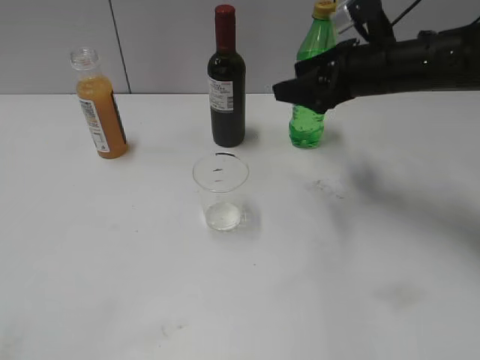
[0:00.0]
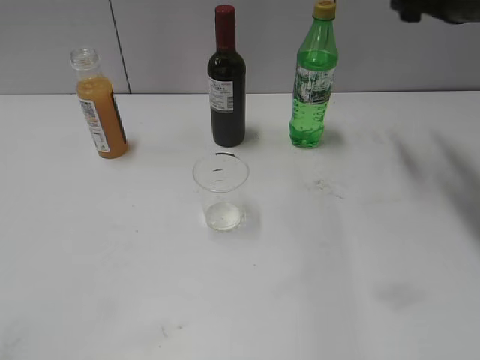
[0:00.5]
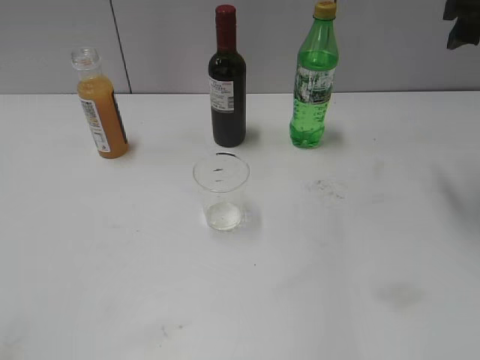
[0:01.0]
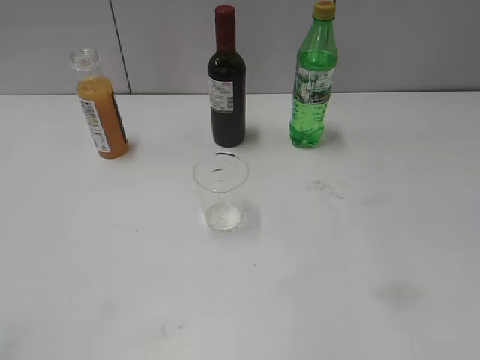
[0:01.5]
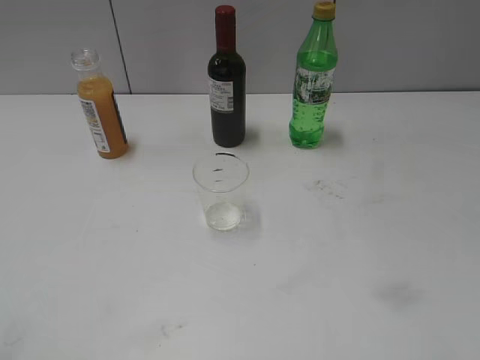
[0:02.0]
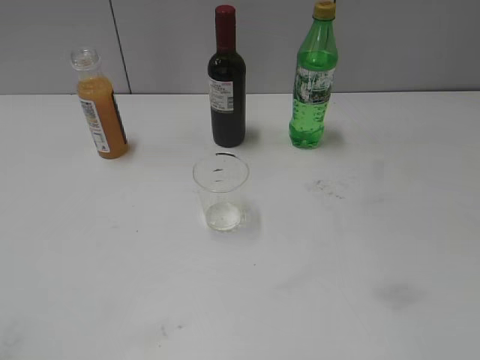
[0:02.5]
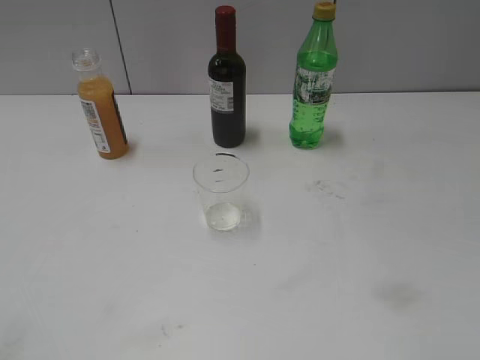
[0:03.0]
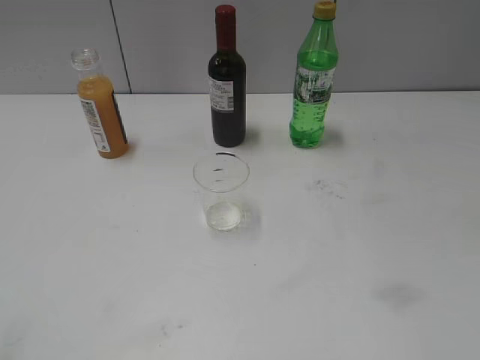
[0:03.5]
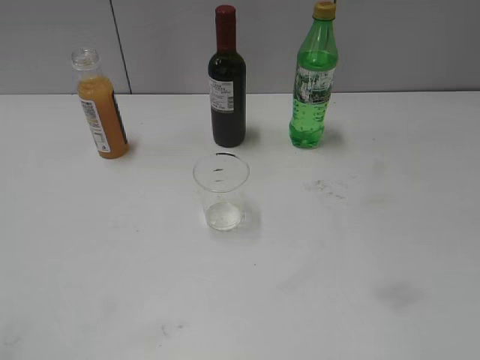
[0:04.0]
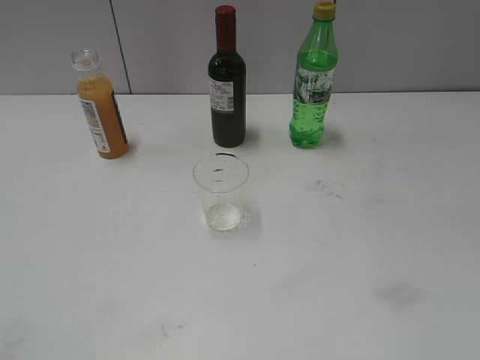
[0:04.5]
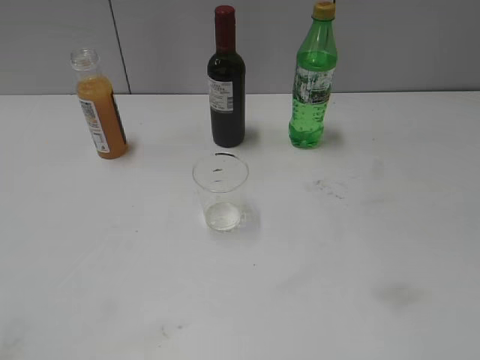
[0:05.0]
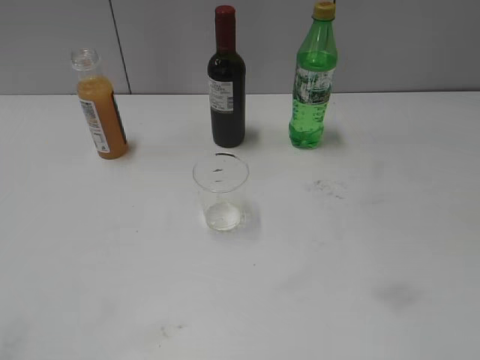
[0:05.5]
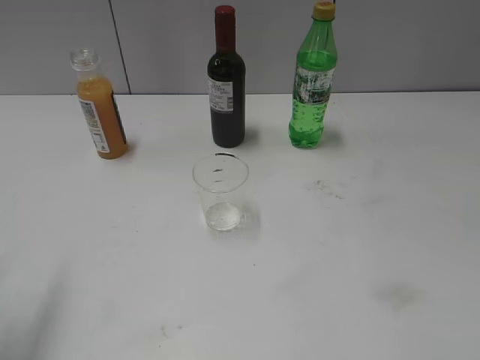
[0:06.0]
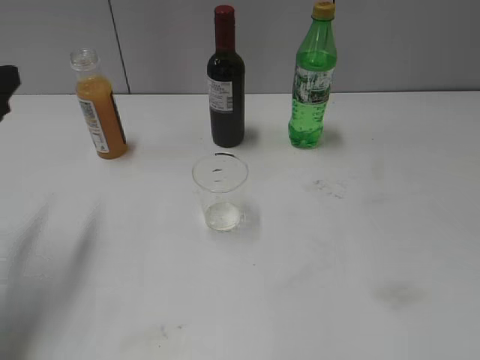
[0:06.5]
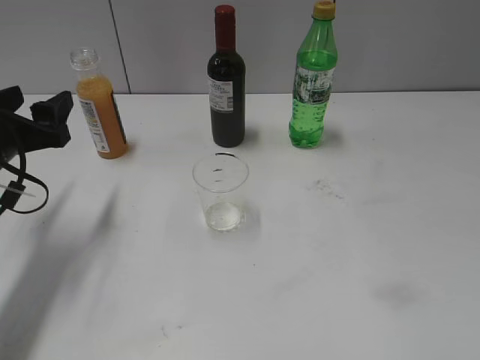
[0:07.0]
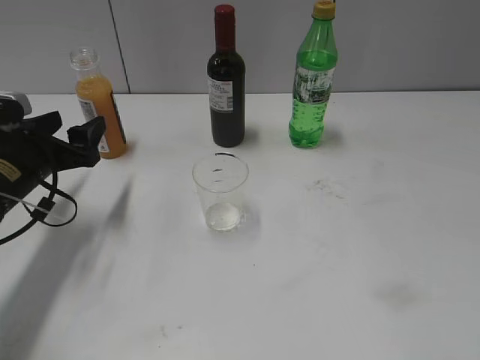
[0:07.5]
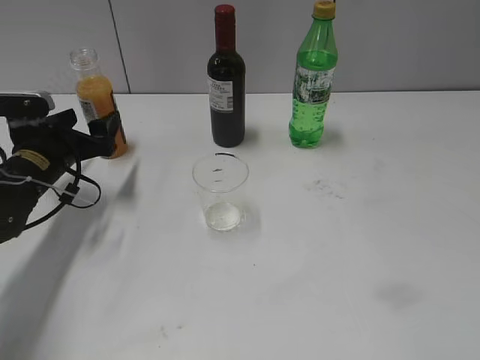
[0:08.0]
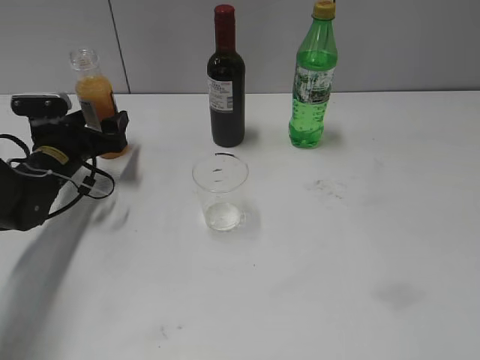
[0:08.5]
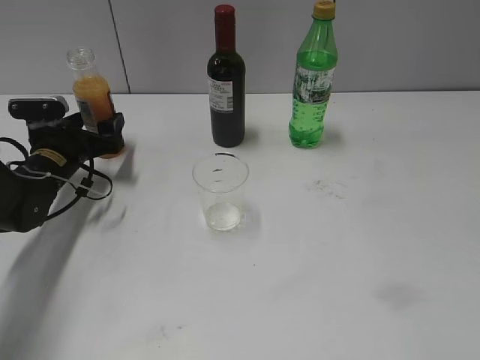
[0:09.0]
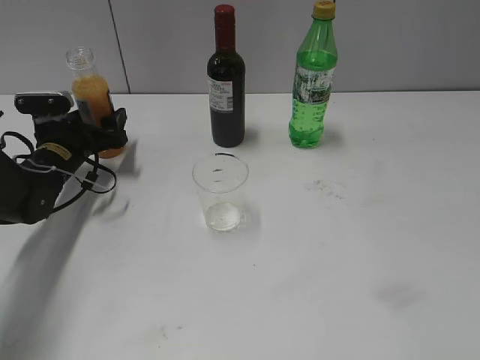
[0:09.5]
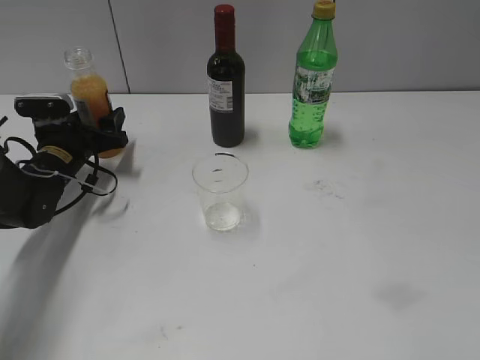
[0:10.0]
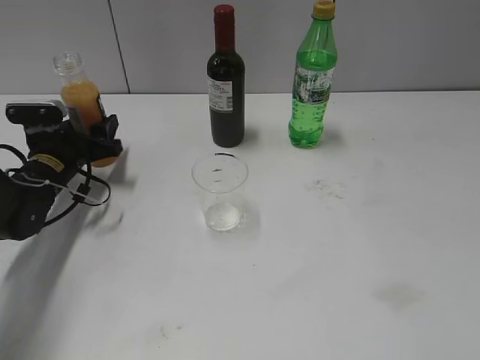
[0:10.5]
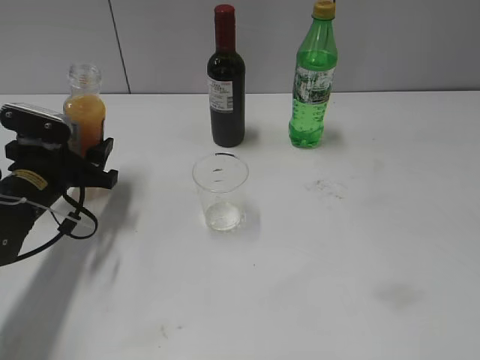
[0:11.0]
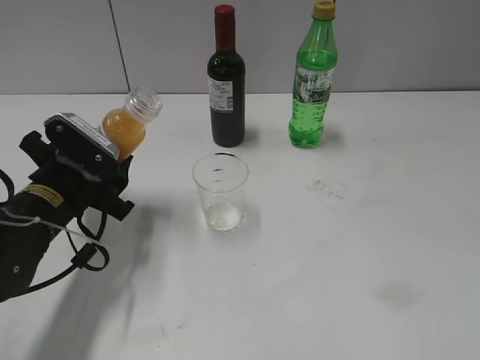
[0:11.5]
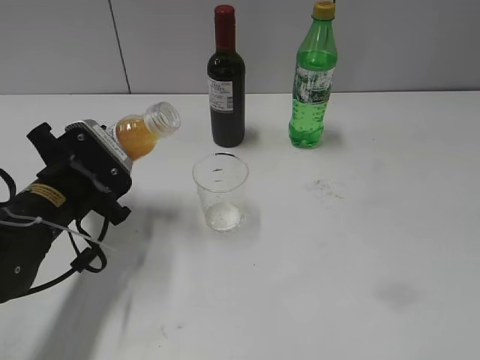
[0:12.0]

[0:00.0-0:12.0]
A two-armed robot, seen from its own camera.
Step, 0:00.0 to 0:10.0: Grasp the bottle with orange juice with left gripper.
0:00.0 to 0:02.0: The right gripper moves backward and to the right, some 35 cm.
0:04.0 to 0:06.0: The left gripper is displaced forward by some 15 cm, and opens.
0:06.0 to 0:08.0: The left gripper goes approximately 30 cm forward and downward.
0:08.0 to 0:10.0: The left gripper is displaced forward by about 5 cm.
0:10.0 to 0:12.0: The left gripper travels backward and upward by some 15 cm.

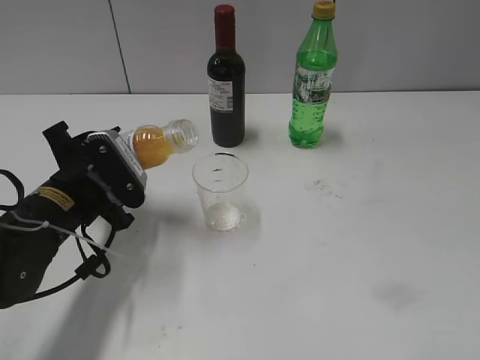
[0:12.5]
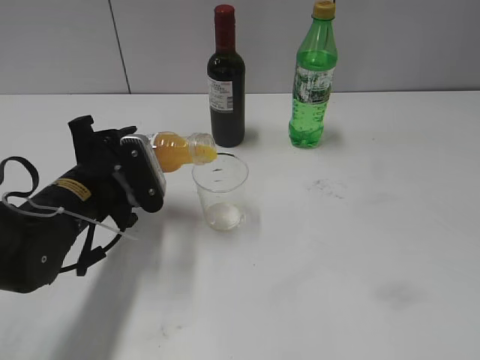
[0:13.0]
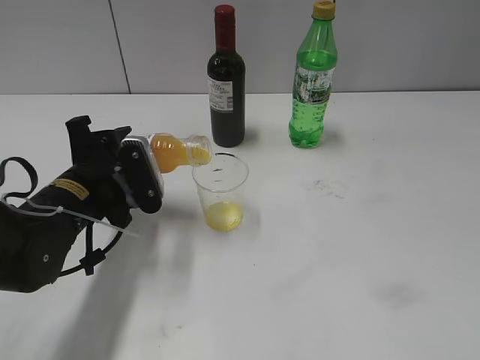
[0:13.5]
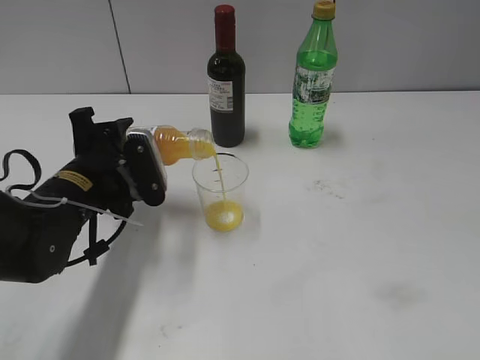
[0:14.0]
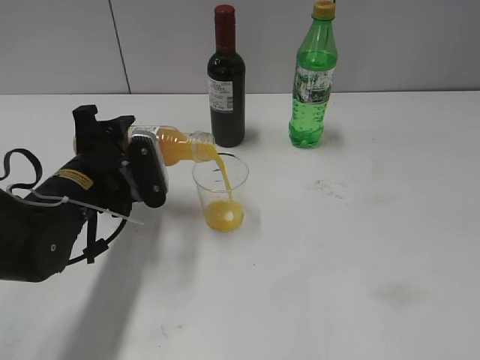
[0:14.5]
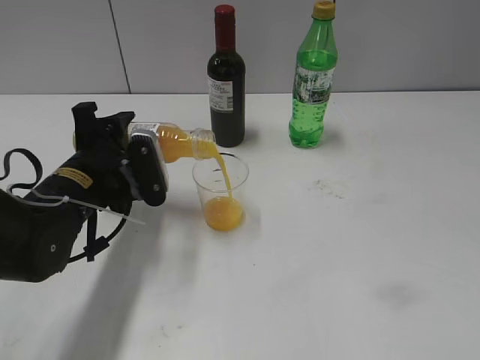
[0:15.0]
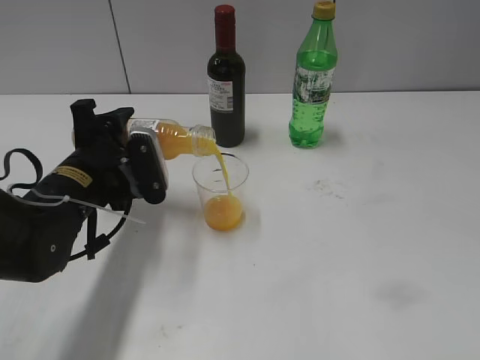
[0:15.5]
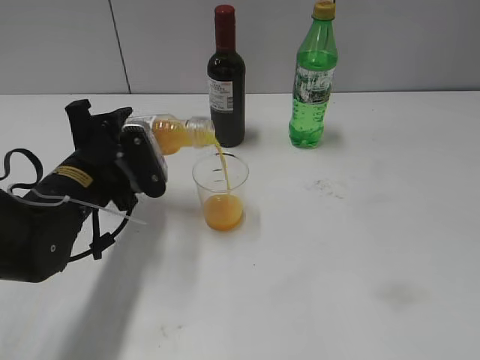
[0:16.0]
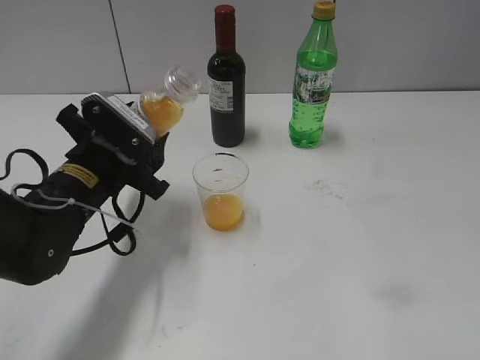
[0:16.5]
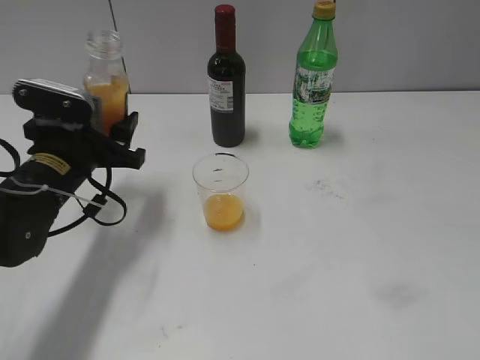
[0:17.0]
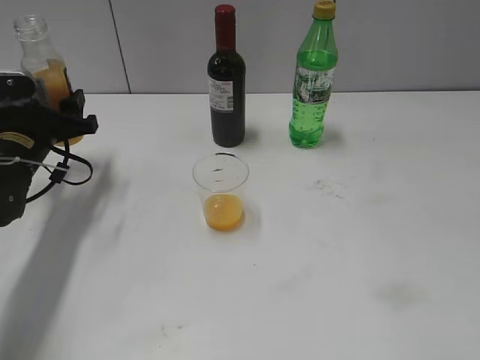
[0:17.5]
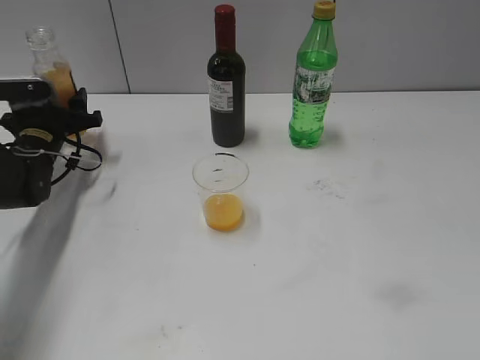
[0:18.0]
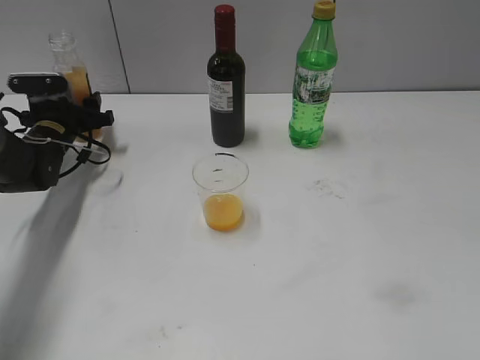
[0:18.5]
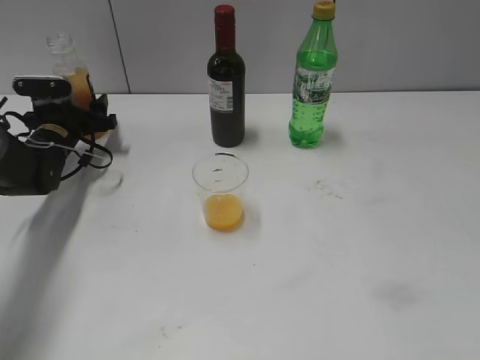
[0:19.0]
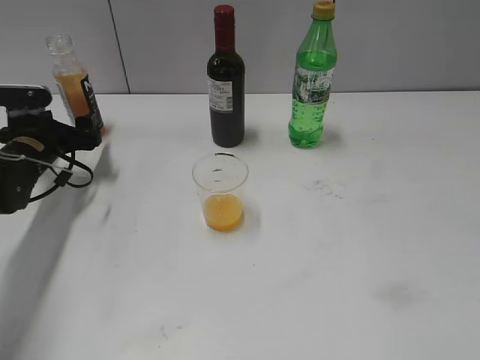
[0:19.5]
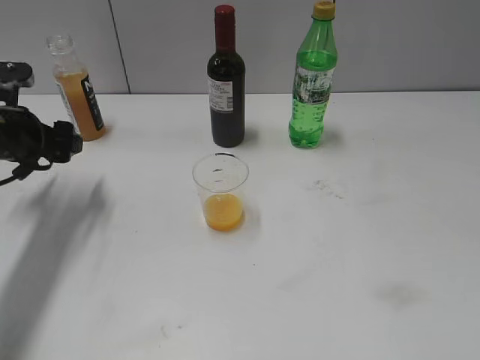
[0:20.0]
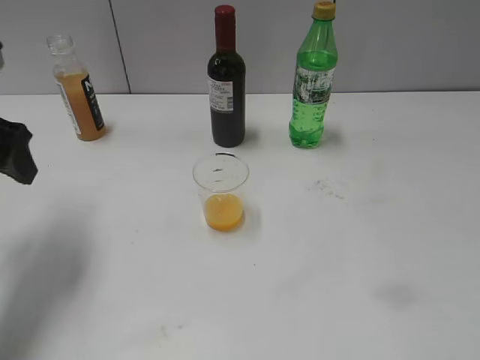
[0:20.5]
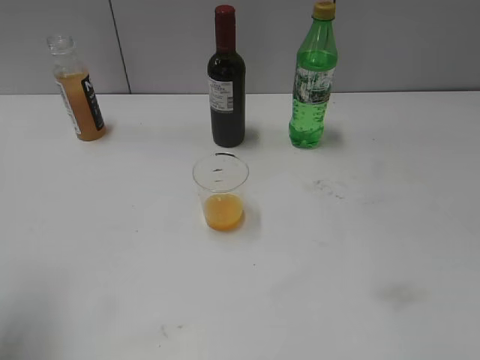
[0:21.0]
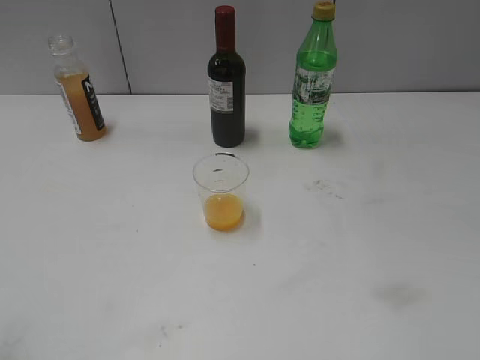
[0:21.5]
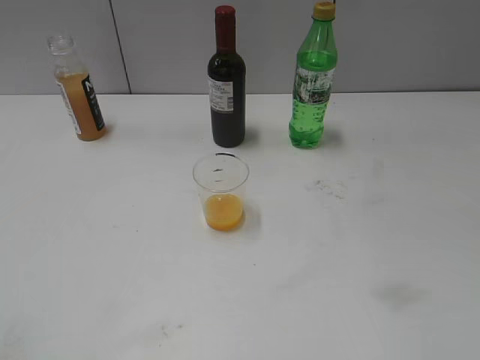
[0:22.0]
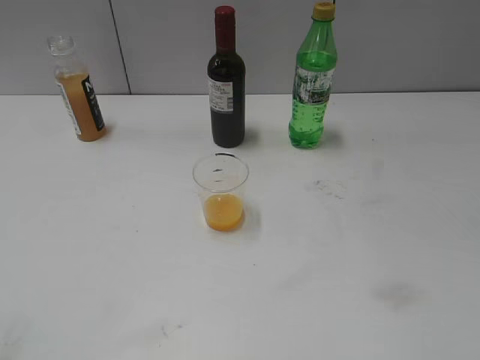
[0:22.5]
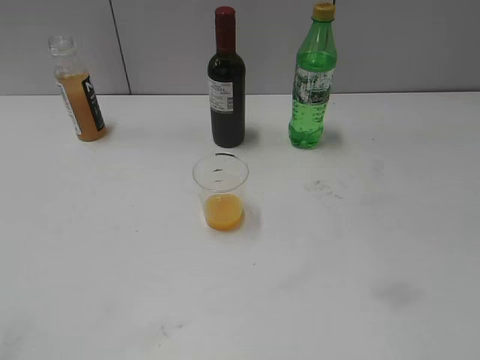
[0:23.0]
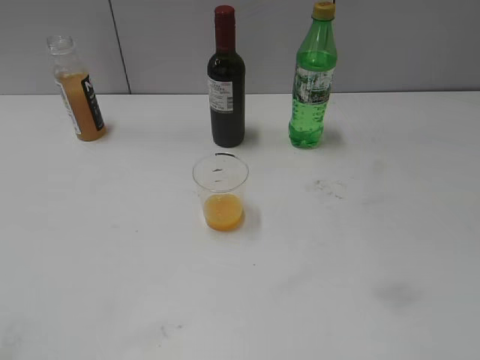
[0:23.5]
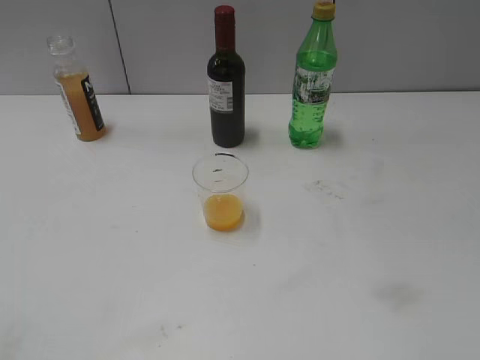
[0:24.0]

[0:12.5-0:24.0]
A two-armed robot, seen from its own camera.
Step, 0:12.5 to 0:16.0: Pour the orange juice from bottle to cup with left gripper.
Step, 0:17.0 to 0:19.0: Place the orange juice bottle on the table with left gripper.
0:12.5 to 0:14.5: The grippers move only a little.
0:16.5 to 0:18.5: The left gripper moves forward and to the left, some 20 cm.
0:18.5 to 0:20.0: The left gripper moves backward and upward, about 15 cm, and opens up.
0:20.0 to 0:22.0: The left gripper moves backward and upward, some 30 cm.

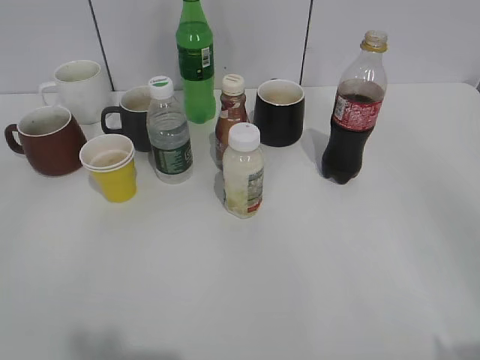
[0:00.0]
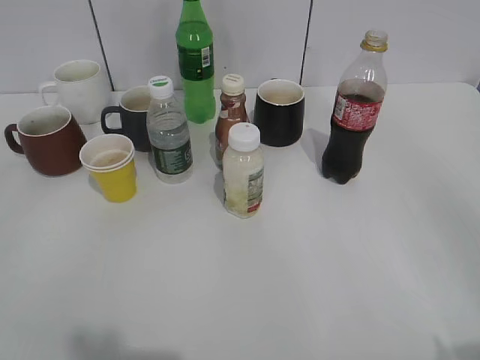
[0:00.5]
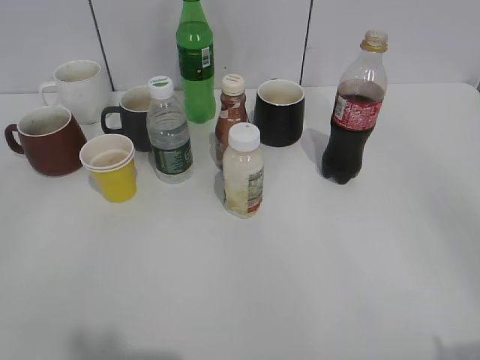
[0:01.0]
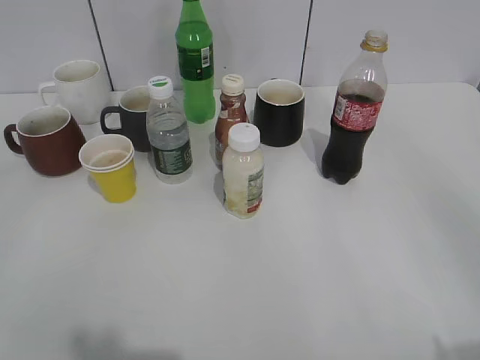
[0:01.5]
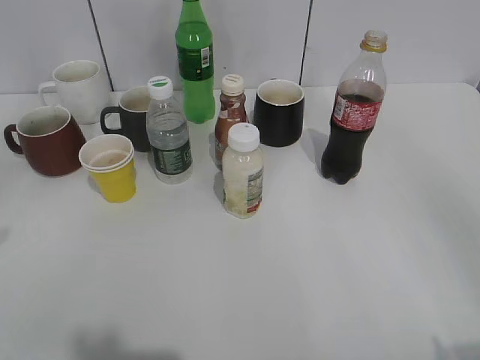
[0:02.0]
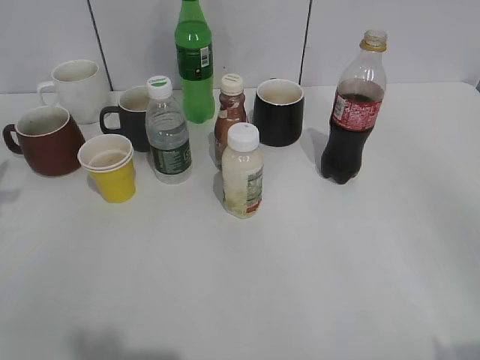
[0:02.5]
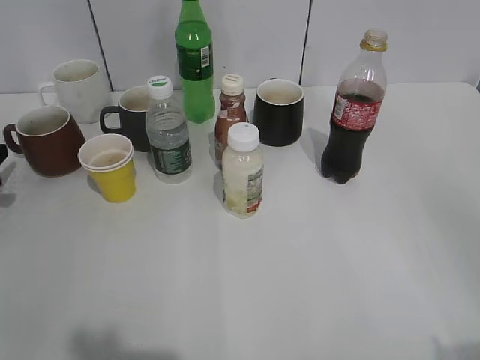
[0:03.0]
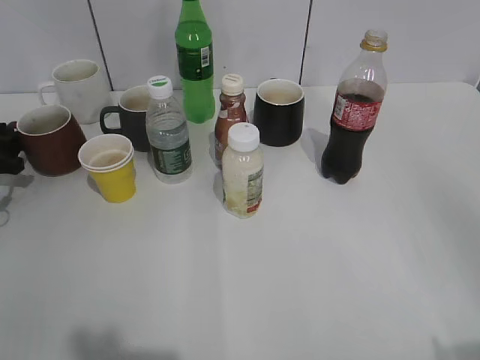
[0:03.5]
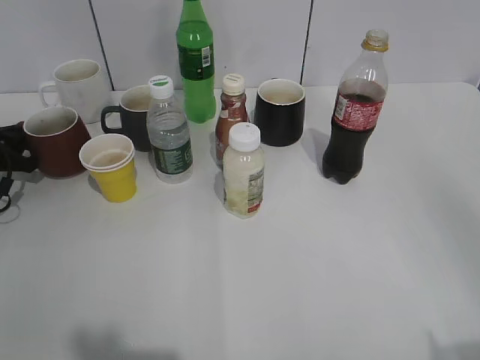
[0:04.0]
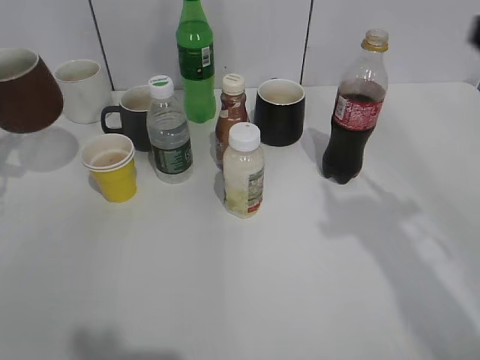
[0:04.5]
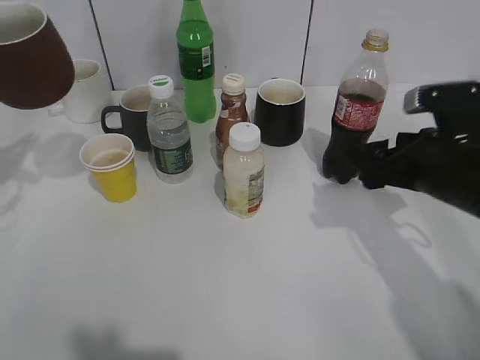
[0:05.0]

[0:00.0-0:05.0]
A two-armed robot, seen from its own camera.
Step, 0:01.0 to 0:03.5: Grasp the red cup with left gripper.
0:02.5 to 0:05.0: The right gripper moves forward and downward, roughly 30 cm. The left gripper is displaced upward by roughly 5 cm, and closes its fingers.
